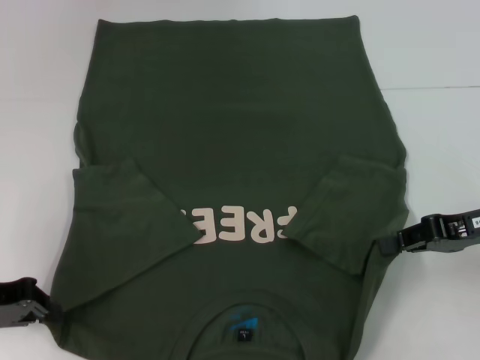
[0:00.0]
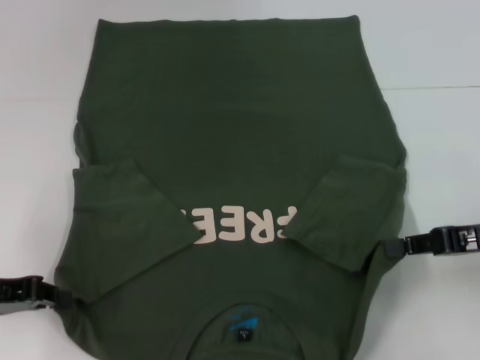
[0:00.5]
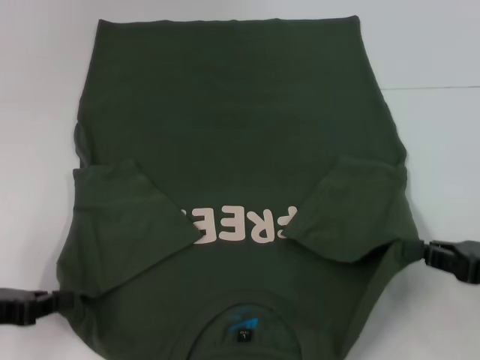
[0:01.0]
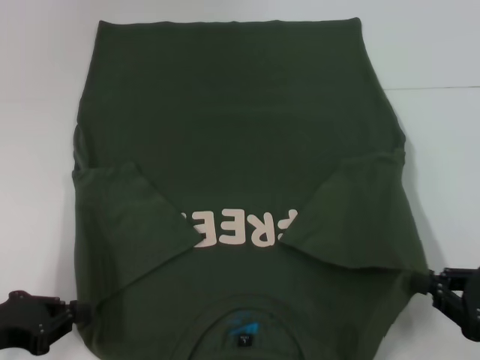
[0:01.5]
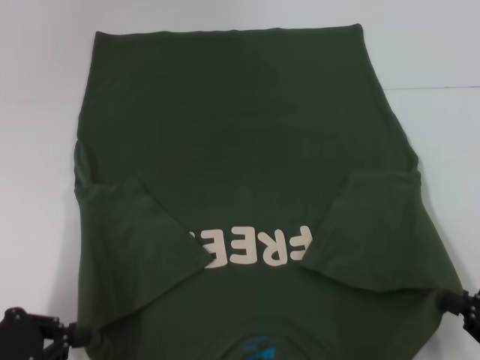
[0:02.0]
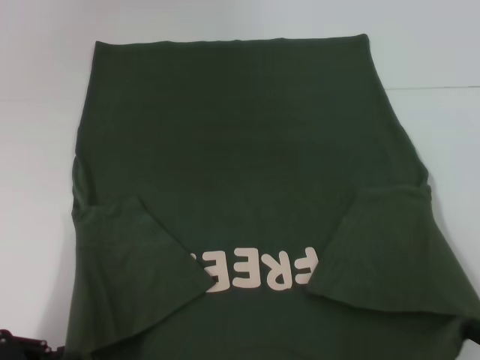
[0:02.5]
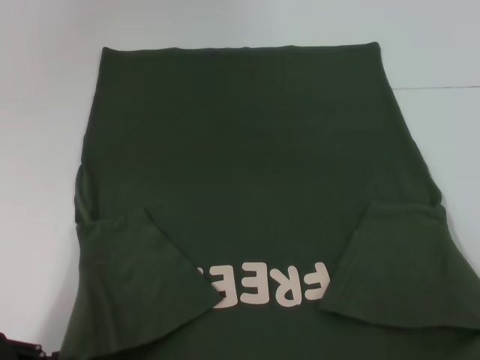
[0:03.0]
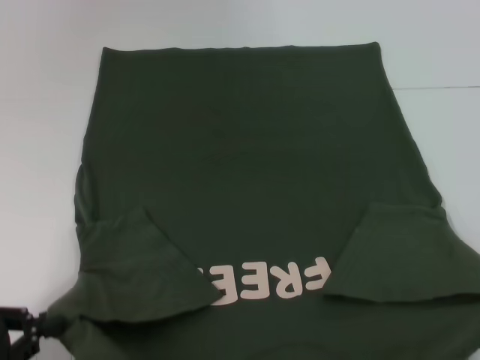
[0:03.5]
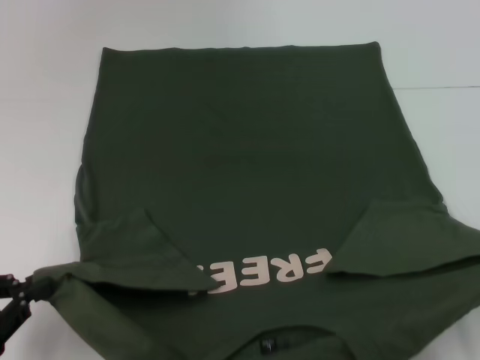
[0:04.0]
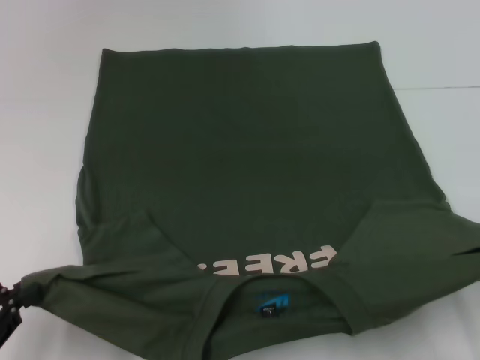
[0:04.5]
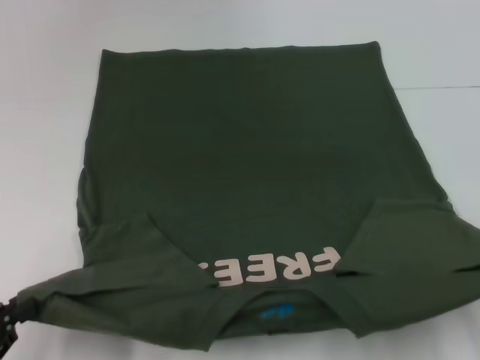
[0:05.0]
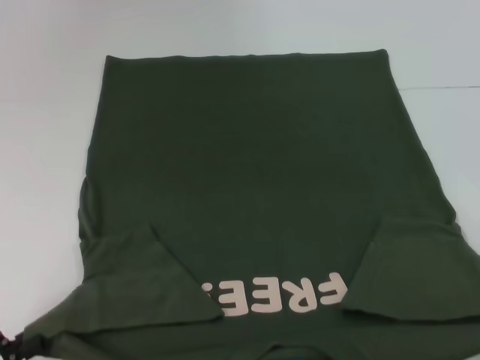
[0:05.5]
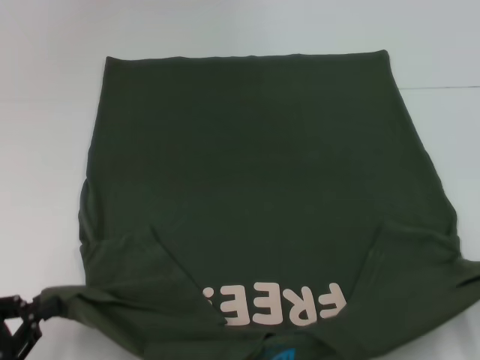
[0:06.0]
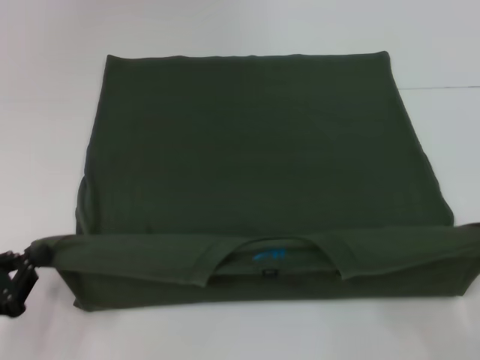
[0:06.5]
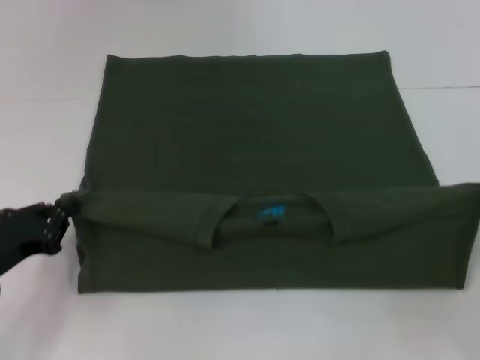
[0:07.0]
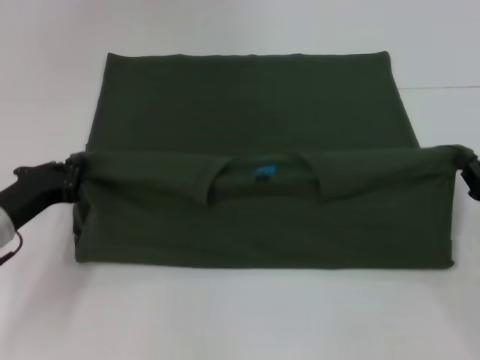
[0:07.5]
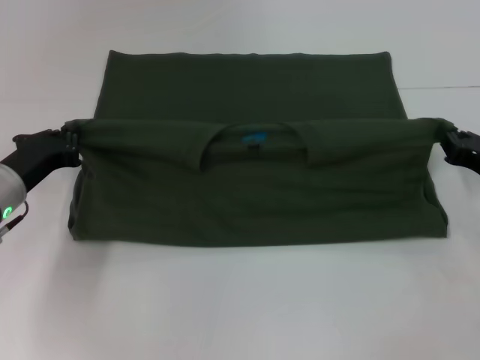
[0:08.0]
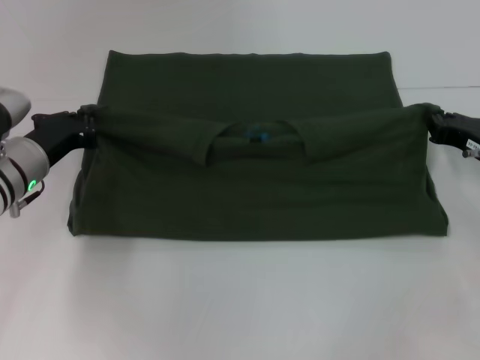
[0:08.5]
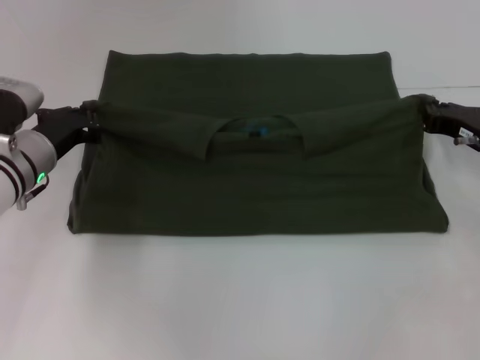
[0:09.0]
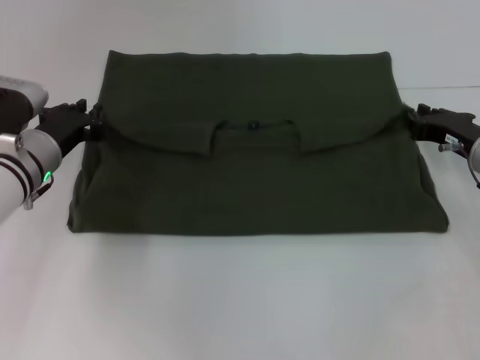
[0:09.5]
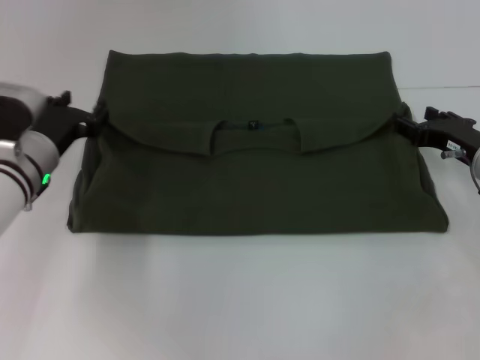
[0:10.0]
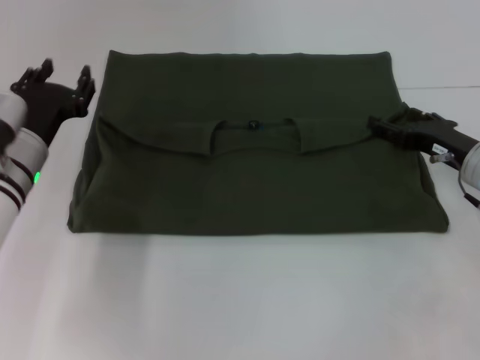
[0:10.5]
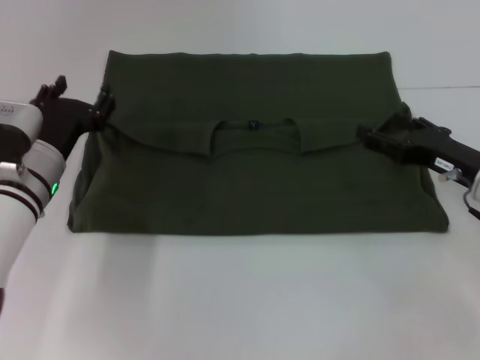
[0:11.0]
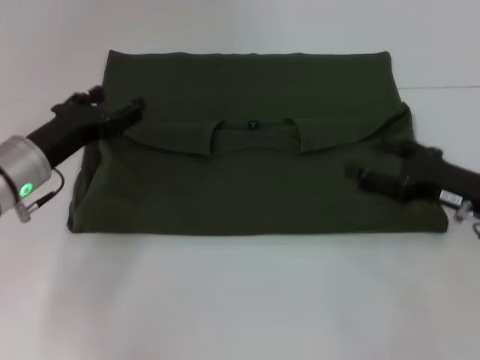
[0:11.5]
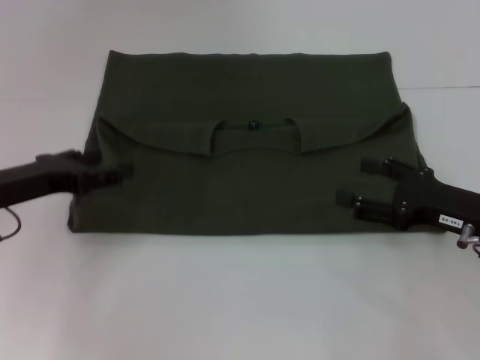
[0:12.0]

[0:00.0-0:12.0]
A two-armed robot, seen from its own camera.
Step, 0:00.5 to 0:09.5: Fold the clothes with your left hand.
Step, 0:00.5 to 0:09.5: Fold the clothes with your right hand.
0:00.0 to 0:02.0: The left gripper travels backward by some 10 cm. Meanwhile the right gripper goes about 20 cm backward and downward.
0:06.0 to 0:08.0: The grippers both shift forward by roughly 20 cm.
0:08.0 to 0:10.0: The right gripper shifts by about 5 cm, and opens its fingers. The left gripper moves approximately 5 cm, and opens its fingers.
0:10.0 to 0:12.0: The left gripper shifts some 10 cm backward and to the left, and opens its fingers. The right gripper heads backward, covering roughly 10 cm.

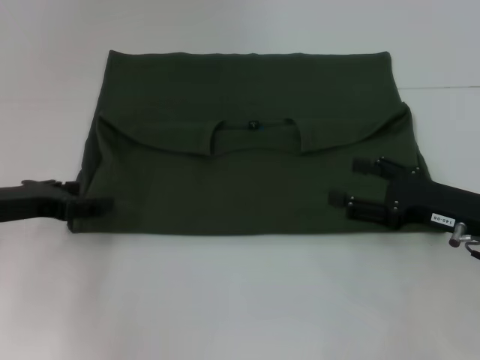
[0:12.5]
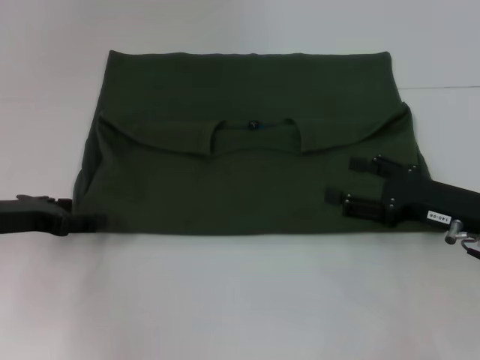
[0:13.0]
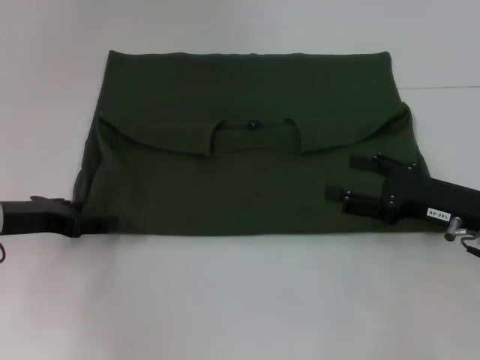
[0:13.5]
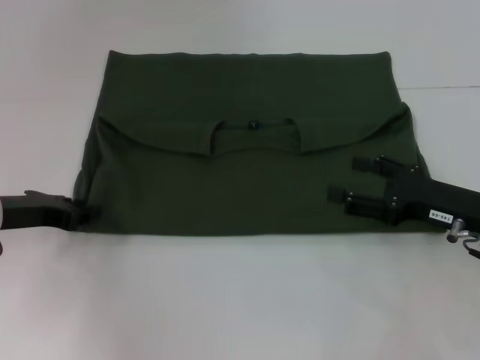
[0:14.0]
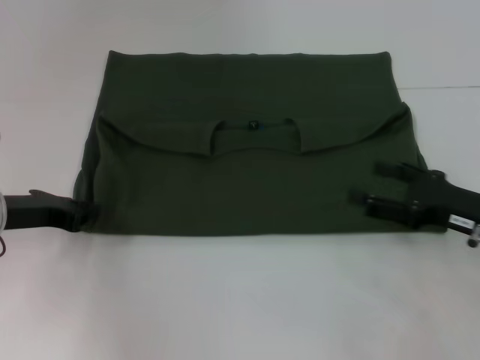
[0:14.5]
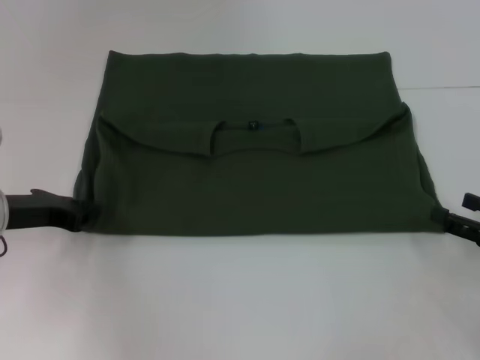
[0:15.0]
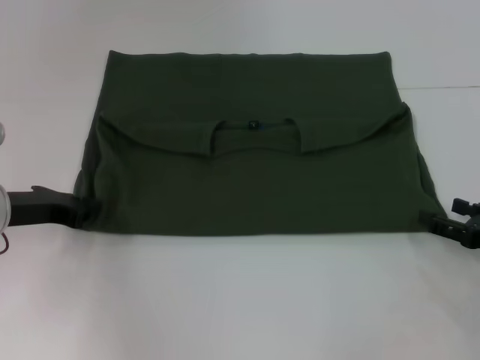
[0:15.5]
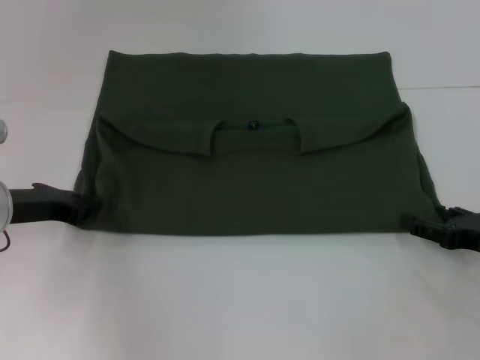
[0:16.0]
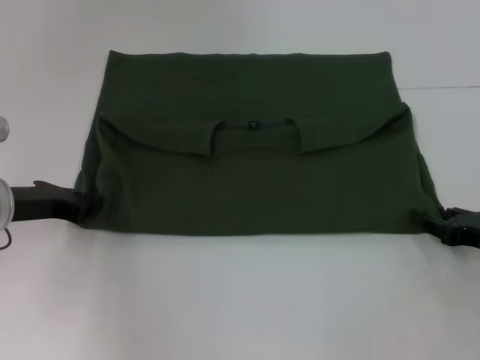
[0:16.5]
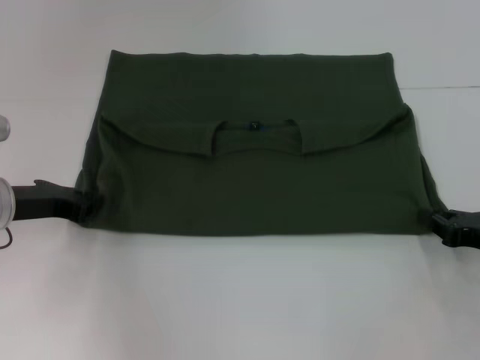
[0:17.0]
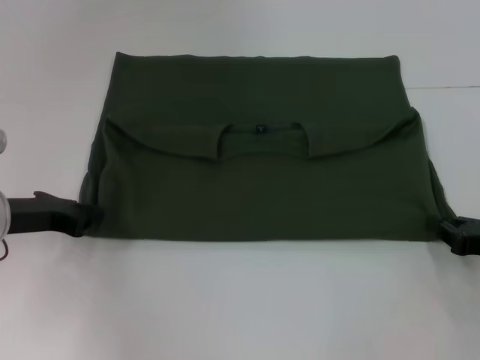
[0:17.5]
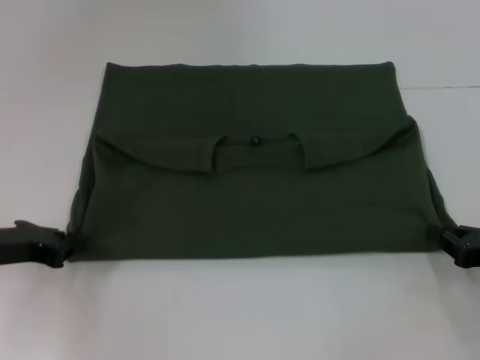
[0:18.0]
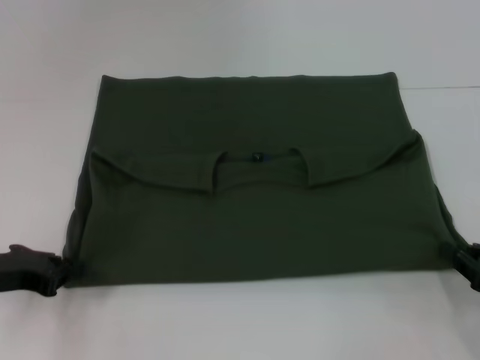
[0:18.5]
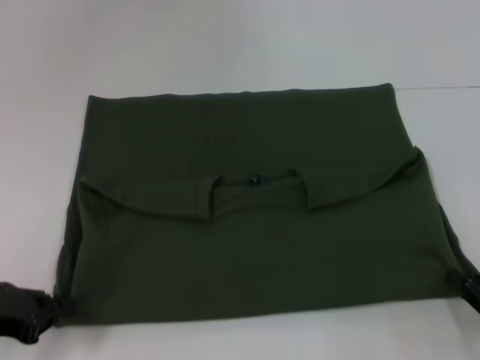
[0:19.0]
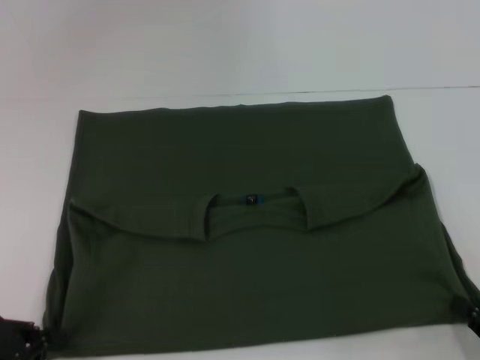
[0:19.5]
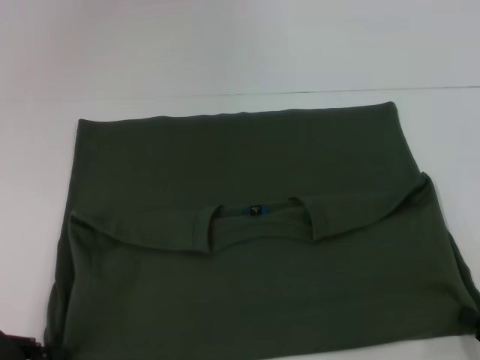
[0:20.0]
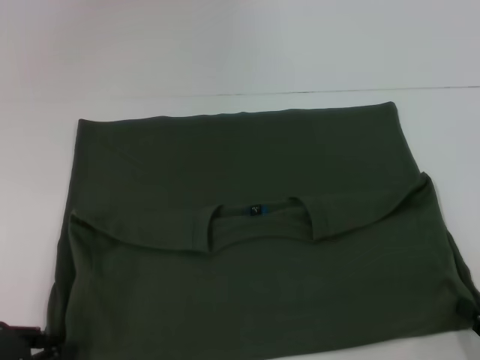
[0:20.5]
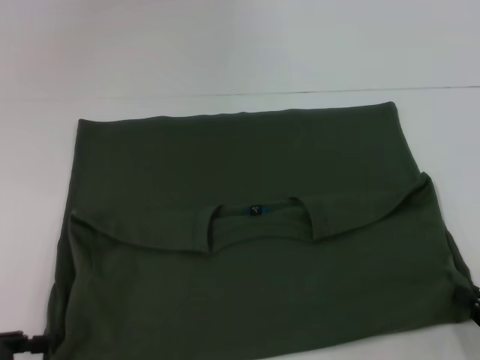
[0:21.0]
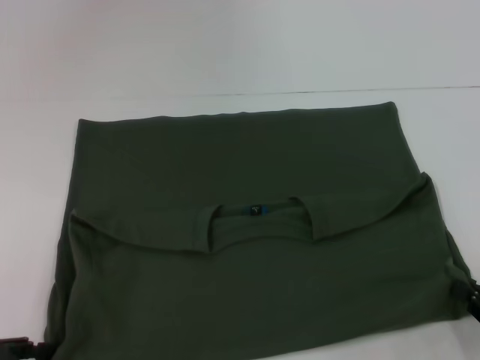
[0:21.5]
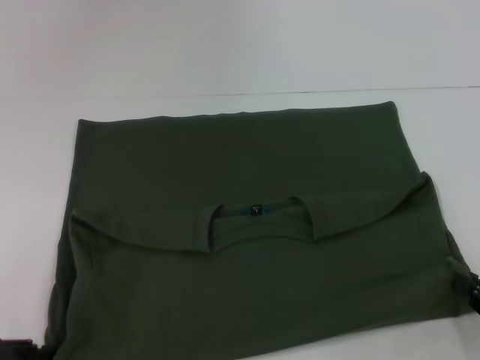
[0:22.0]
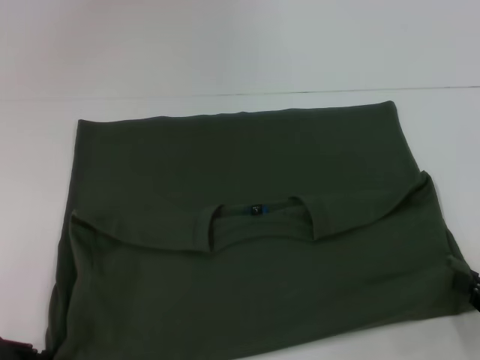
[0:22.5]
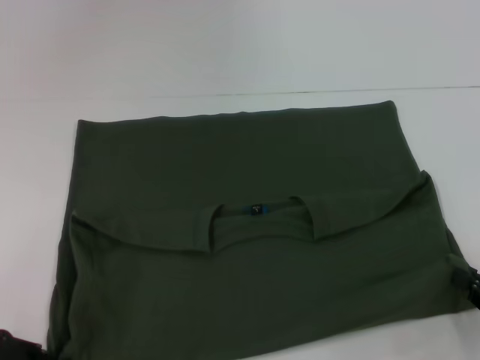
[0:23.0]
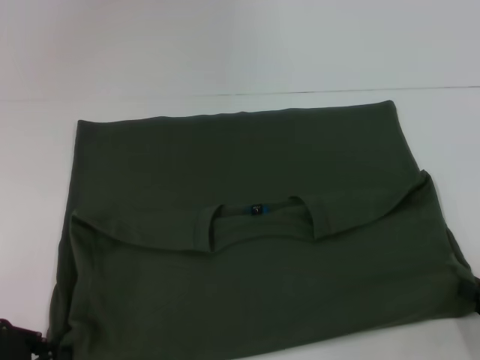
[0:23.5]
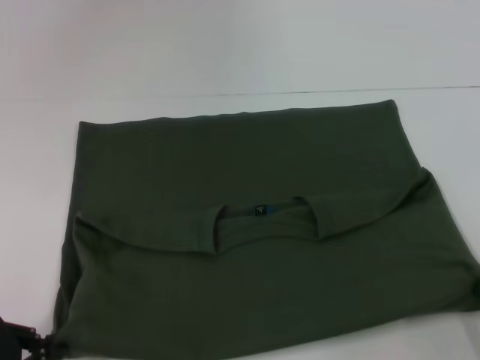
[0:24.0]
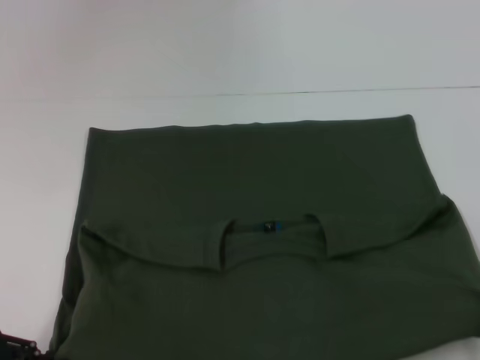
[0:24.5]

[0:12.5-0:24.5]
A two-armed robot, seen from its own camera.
Step, 0:12.5 to 0:20.5: Pull the clothes with your left hand.
Step, 0:12.5 to 0:20.5: Pull the clothes with your right hand.
0:12.5 to 0:14.5: The left gripper closes up.
0:14.5 to 0:16.5: The right gripper moves roughly 5 cm, and closes up.
0:16.5 to 0:18.5: Both grippers move backward, approximately 5 cm. The right gripper closes up.
0:18.5 to 0:20.5: Both grippers move backward, roughly 10 cm.
0:20.5 to 0:22.5: The left gripper opens, then closes once more.
0:22.5 to 0:24.5: The right gripper heads backward, covering about 5 cm.

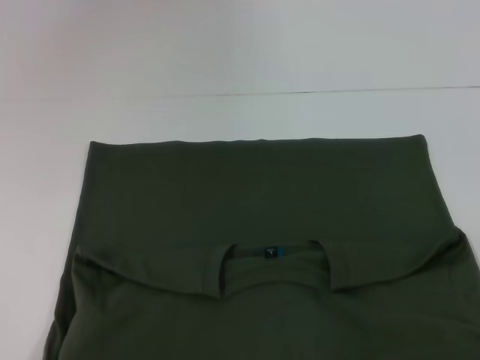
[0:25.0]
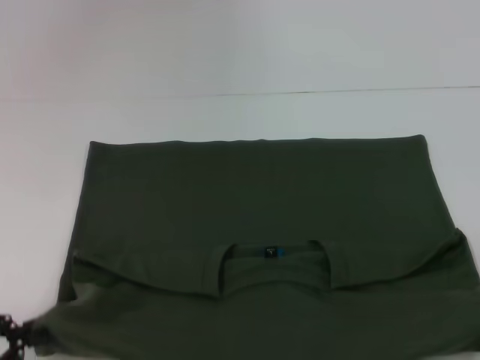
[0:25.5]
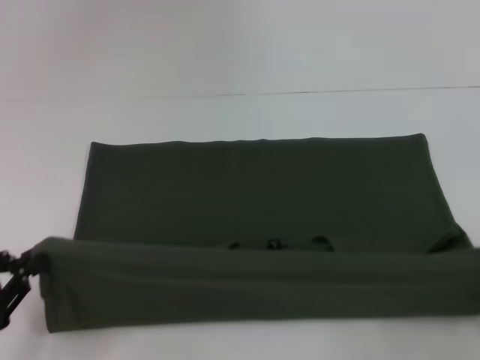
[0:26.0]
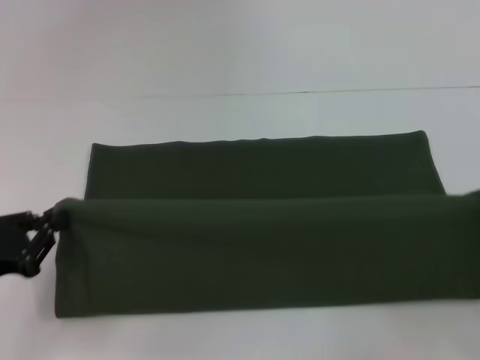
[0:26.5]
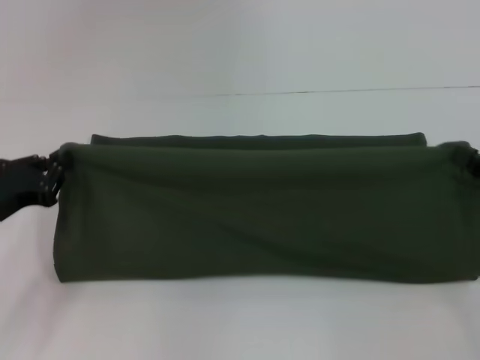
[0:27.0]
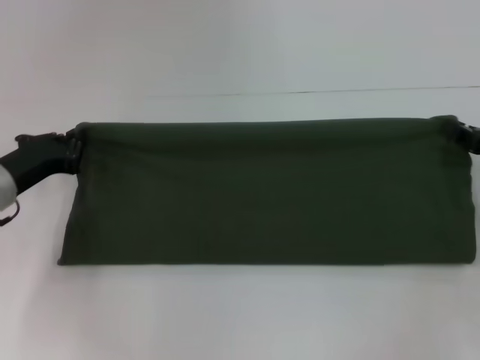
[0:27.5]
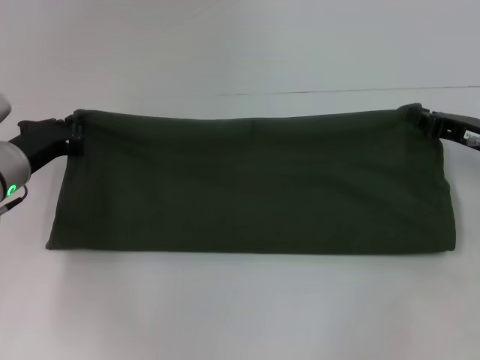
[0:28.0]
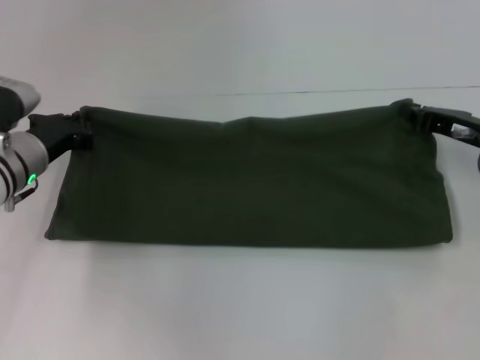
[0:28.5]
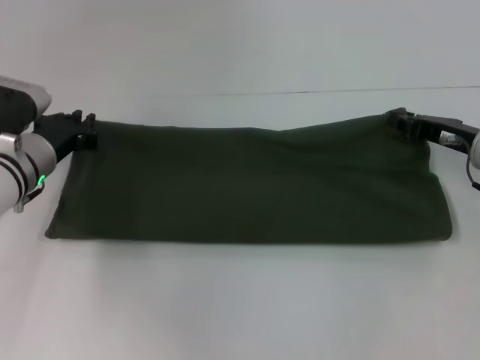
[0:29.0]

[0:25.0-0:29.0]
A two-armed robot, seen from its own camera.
Step, 0:25.0 to 0:29.0: Fold the clothes with your left hand.
0:25.0 to 0:27.0: The two grippers go approximately 20 cm forward.
0:27.0 to 0:29.0: The right gripper is displaced forward and to the left by about 15 cm. Meanwhile the left gripper heads forward and to the right, covering about 10 cm.
